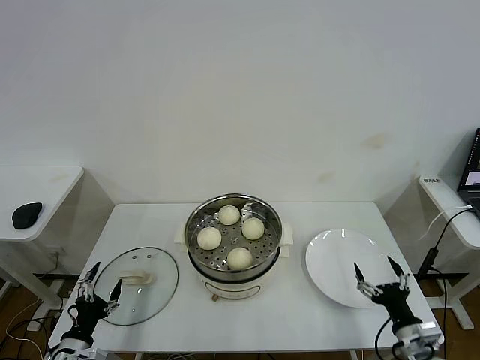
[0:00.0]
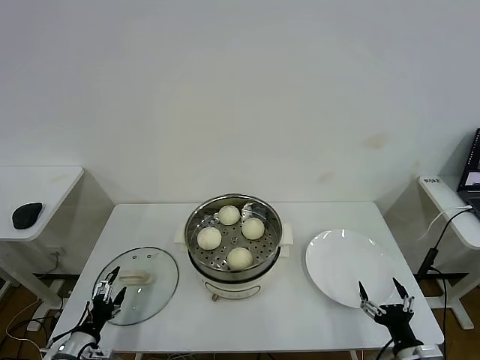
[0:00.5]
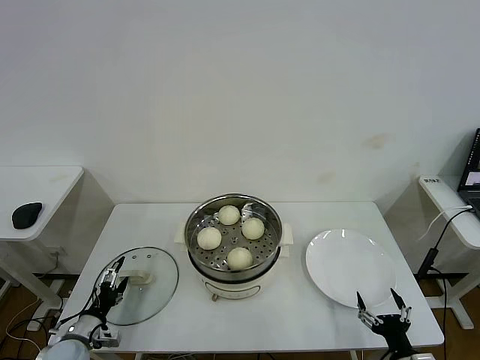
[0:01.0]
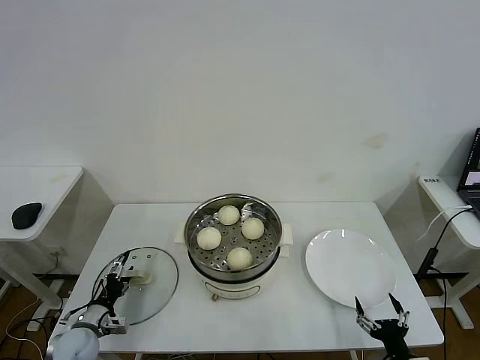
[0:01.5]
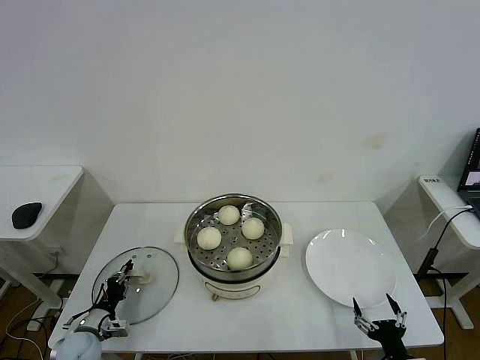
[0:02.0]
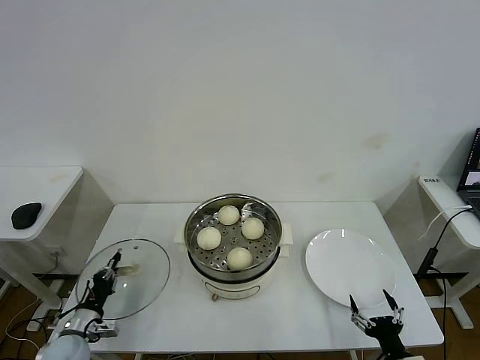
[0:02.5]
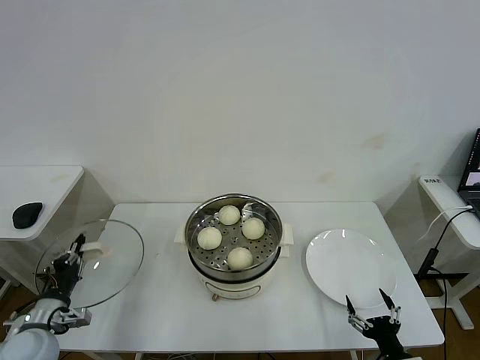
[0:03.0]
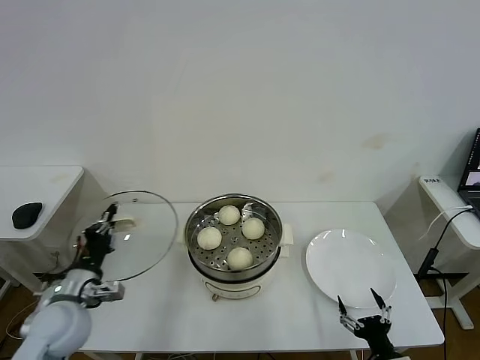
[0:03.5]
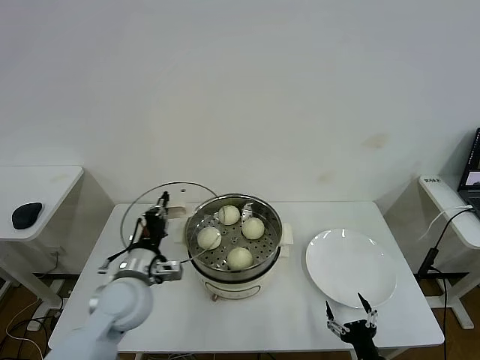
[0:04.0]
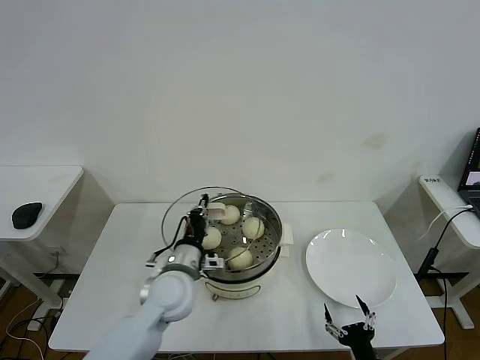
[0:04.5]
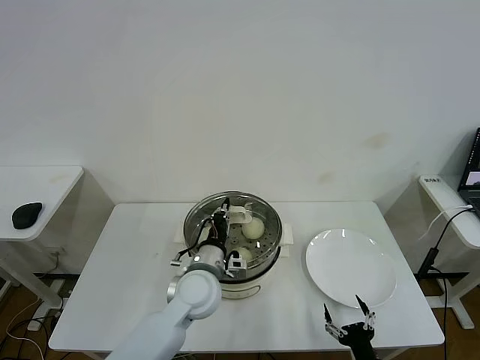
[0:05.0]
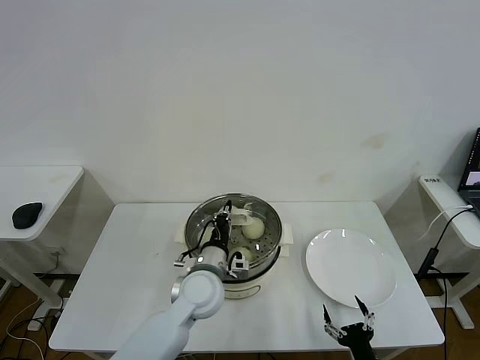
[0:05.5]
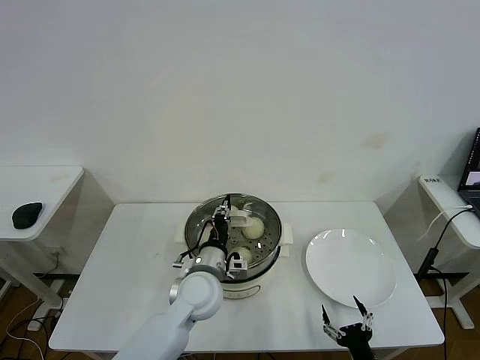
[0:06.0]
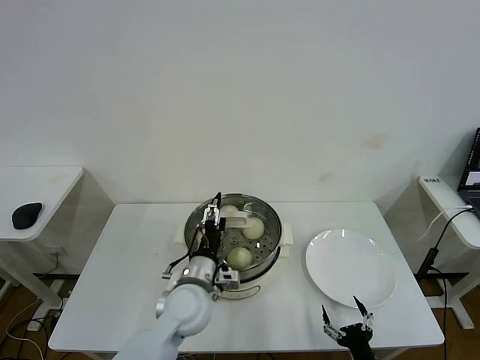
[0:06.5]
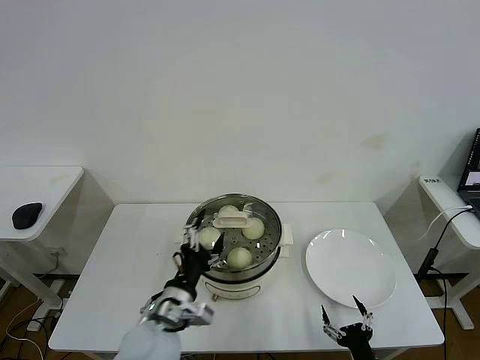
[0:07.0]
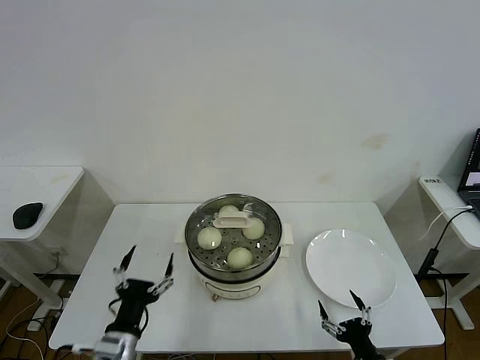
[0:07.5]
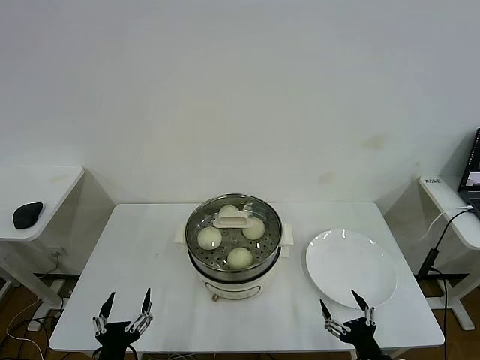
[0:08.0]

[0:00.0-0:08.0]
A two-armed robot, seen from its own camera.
Step, 0:00.0 to 0:02.0: Grasp the pot lid with left gripper.
Step, 0:02.5 to 0:06.0: Place the pot lid on the steamer with left gripper.
0:00.0 to 0:02.0: The left gripper travels forward and downward by approximately 10 cm, and closes; the right gripper travels backward by roughly 5 cm.
0:02.0 to 0:04.0: The left gripper is displaced upward and to the right by approximately 25 cm. Meanwhile the right gripper ends up roughly 5 cm from where it was.
0:04.0 to 0:06.0: The left gripper is displaced to the right by some 15 cm.
0:06.0 to 0:08.0: The left gripper goes approximately 30 cm backward and to the left, and opens up.

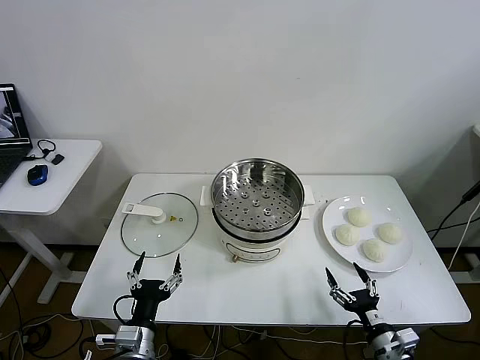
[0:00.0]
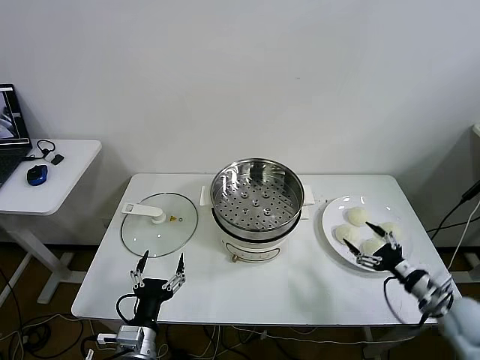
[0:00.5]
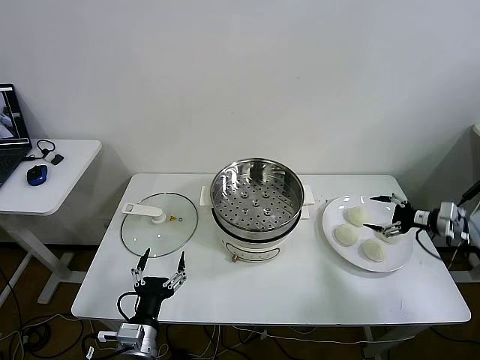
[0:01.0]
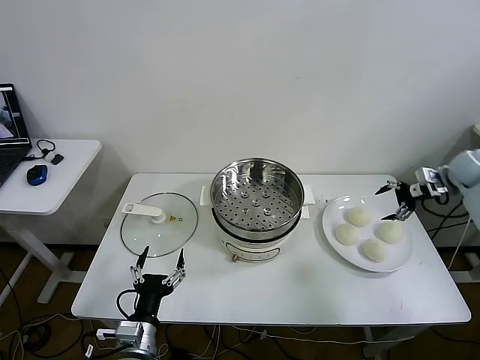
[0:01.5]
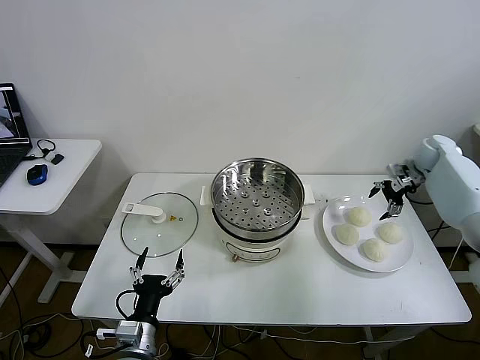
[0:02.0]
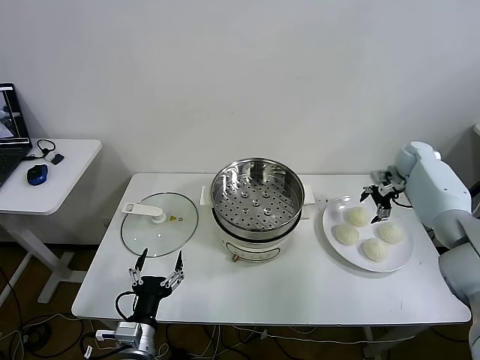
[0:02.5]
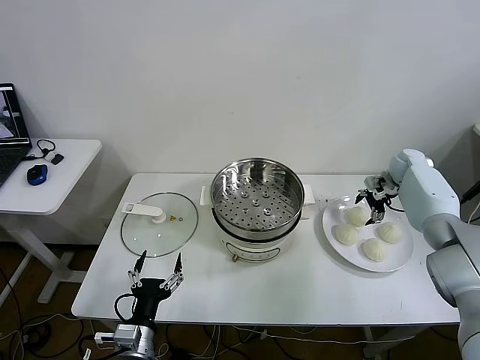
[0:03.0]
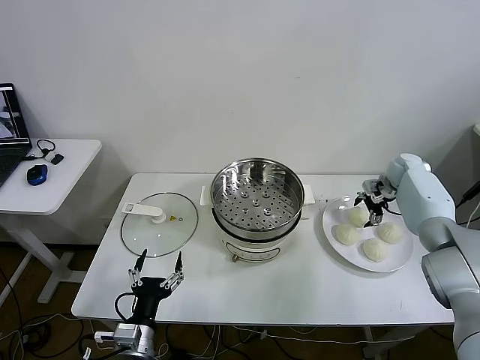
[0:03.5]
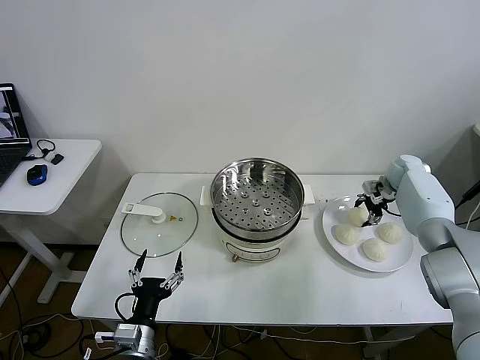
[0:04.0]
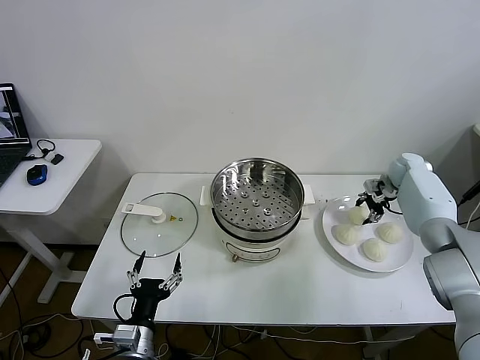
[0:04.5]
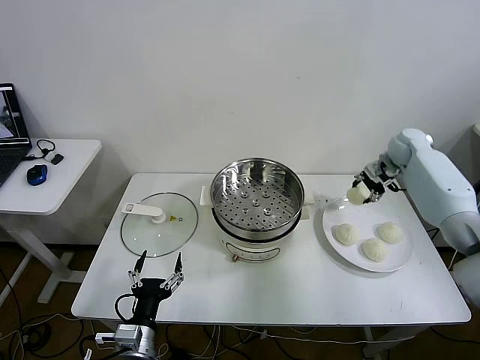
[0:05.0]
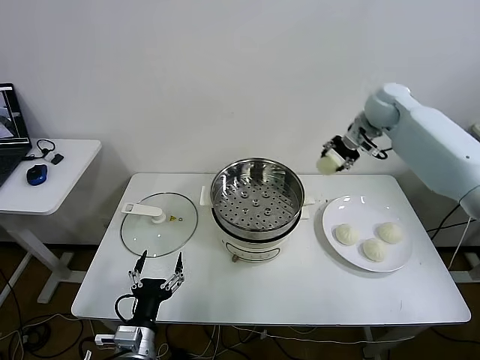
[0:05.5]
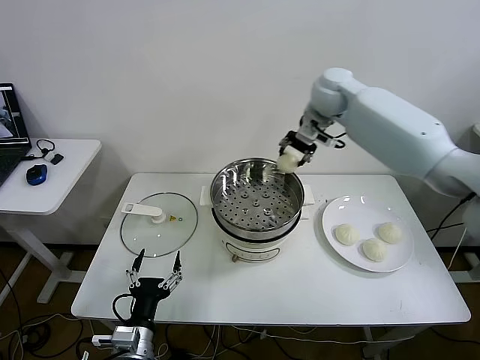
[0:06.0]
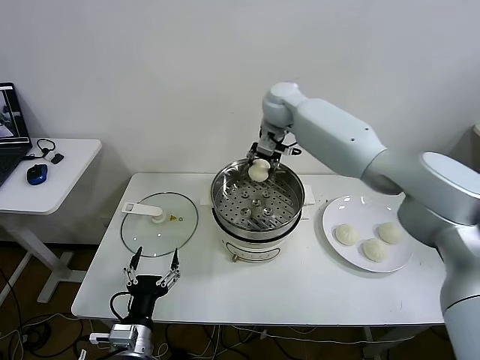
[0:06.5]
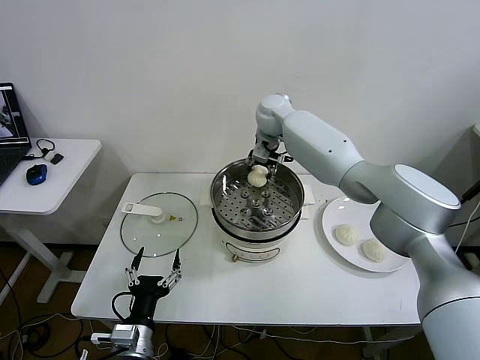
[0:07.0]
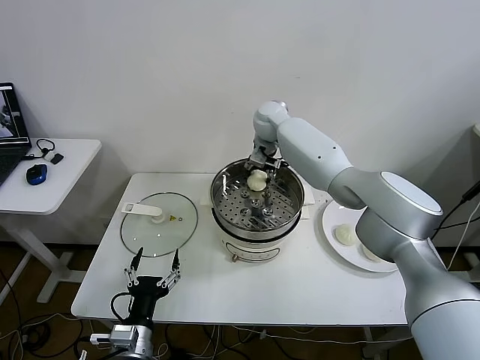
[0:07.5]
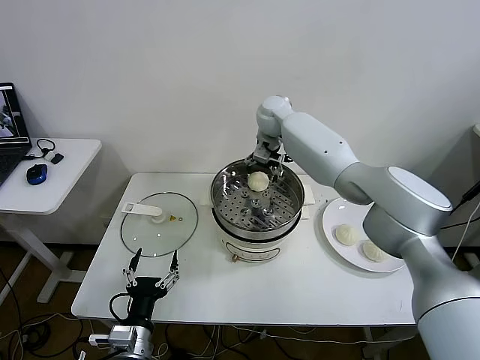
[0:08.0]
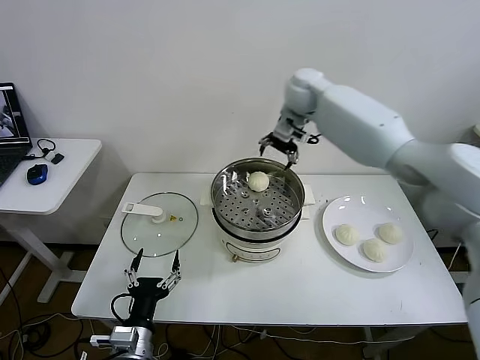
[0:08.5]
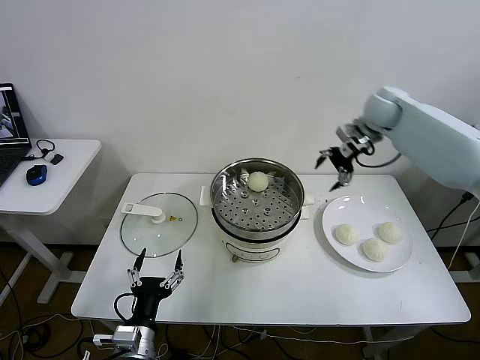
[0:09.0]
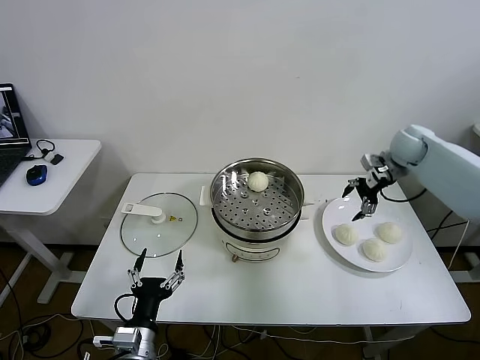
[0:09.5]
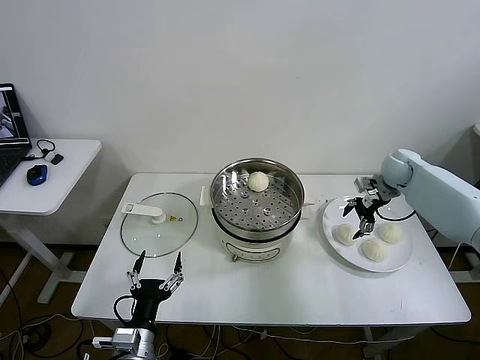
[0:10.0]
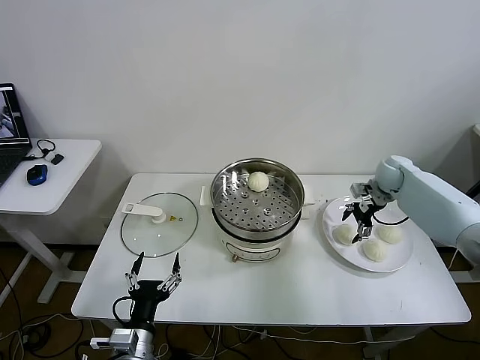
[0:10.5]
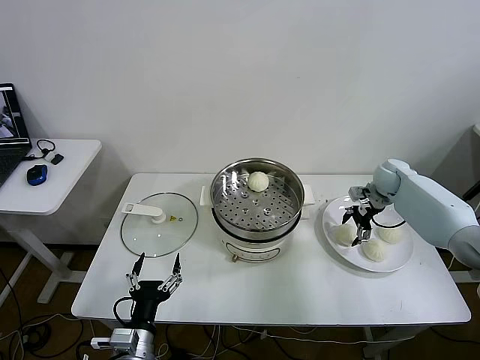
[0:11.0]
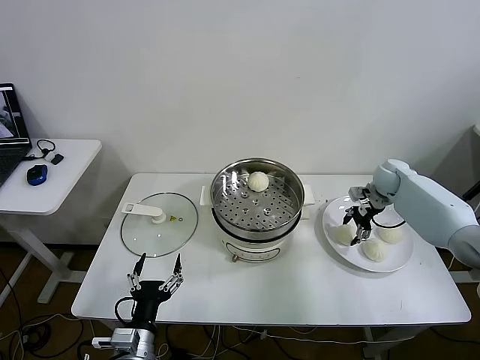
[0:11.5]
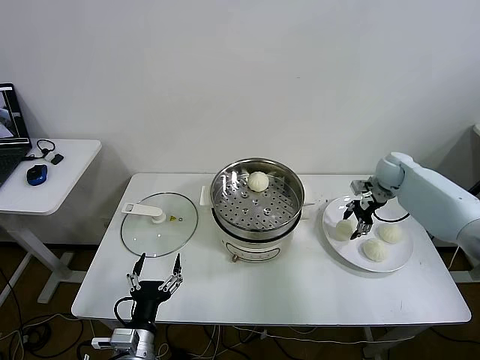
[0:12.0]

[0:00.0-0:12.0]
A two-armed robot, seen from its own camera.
Step, 0:00.0 to 0:04.5: Grasp the baozi in the plate with right gripper.
Step, 0:05.0 to 0:07.5: Place the baozi on the steamer with right gripper.
Step, 0:08.5 to 0:11.5: Grasp the baozi in the plate with right gripper.
0:02.0 to 0:04.0: The right gripper travels downward by roughly 5 cm, and closes.
0:04.0 to 0:06.0: The right gripper shifts some 40 cm to the left and upward, and closes.
0:06.0 to 0:08.0: The right gripper heads to the left and downward, covering approximately 10 cm, and opens up.
0:08.0 to 0:10.0: The right gripper moves to the right, about 35 cm.
0:10.0 to 0:12.0: The right gripper closes its fingers.

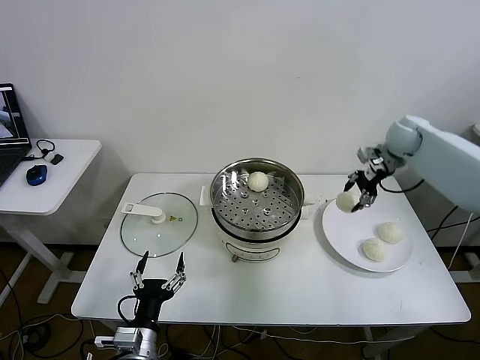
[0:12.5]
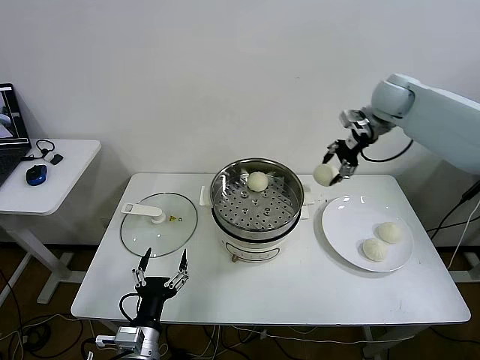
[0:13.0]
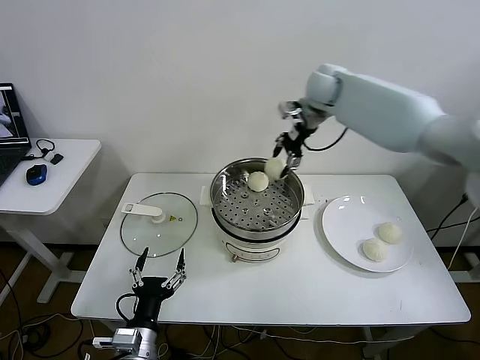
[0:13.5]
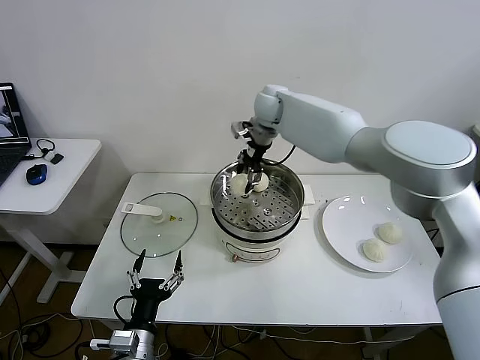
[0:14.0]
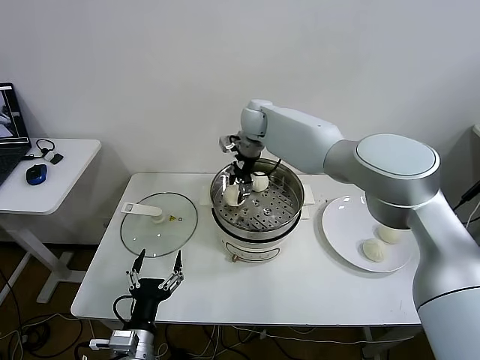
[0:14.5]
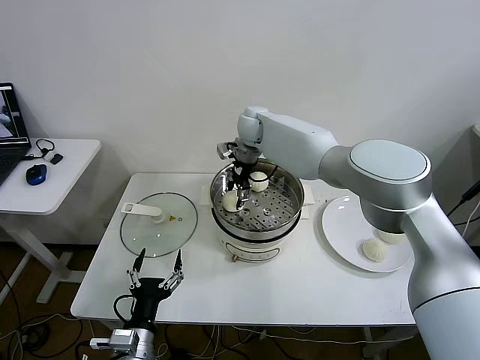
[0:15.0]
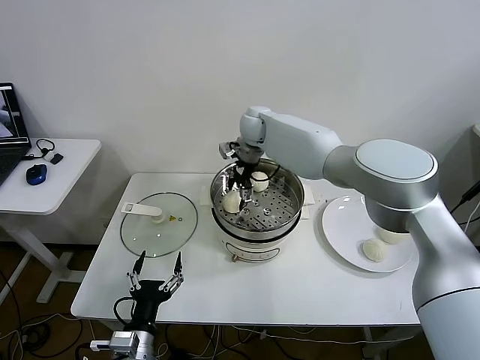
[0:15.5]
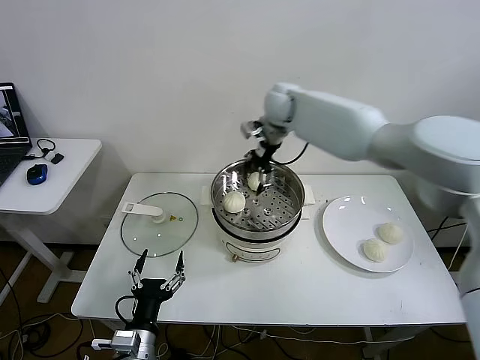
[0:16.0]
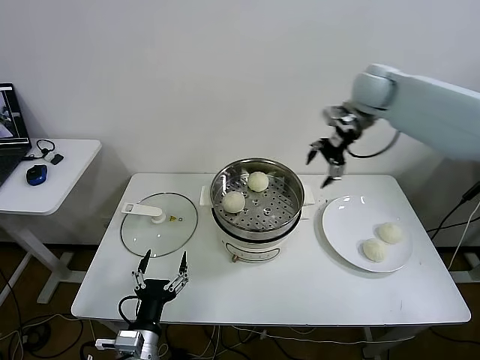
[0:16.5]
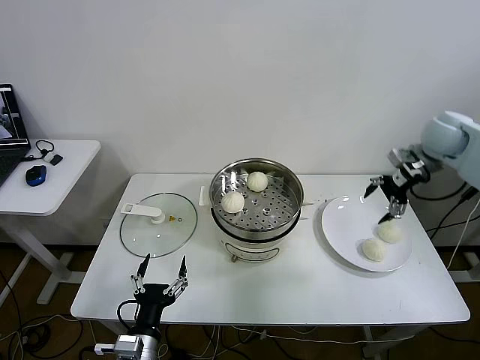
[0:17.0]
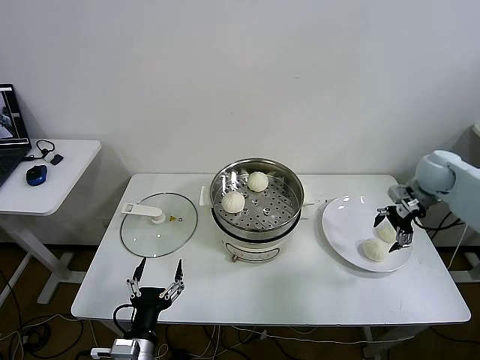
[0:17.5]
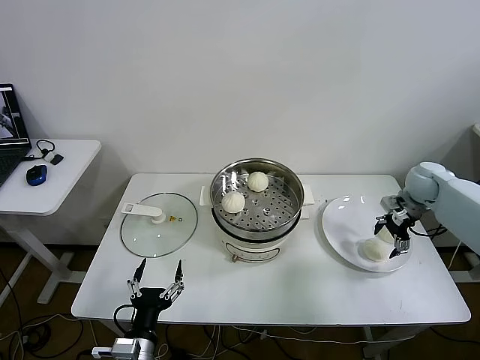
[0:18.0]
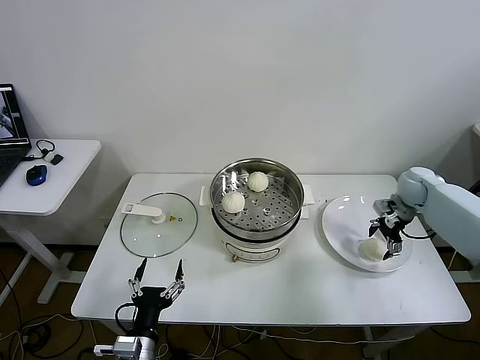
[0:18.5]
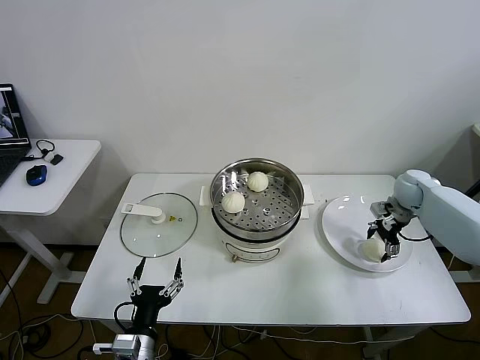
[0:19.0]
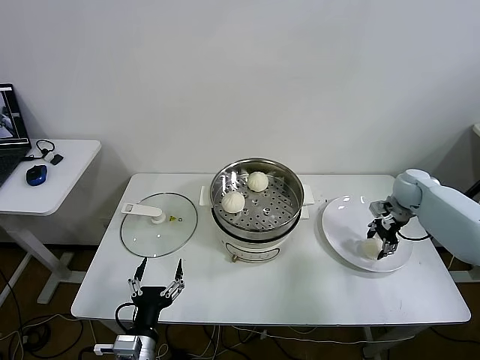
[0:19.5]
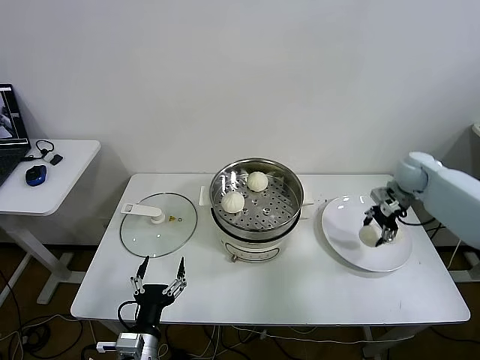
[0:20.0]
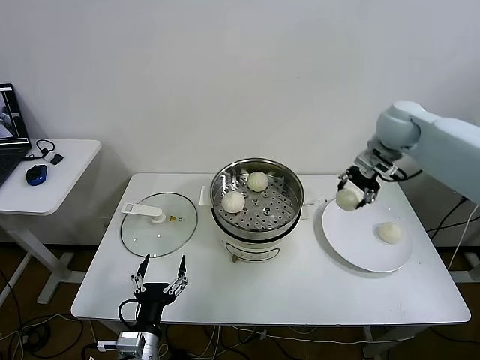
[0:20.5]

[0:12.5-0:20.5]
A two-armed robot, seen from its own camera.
Step, 0:12.5 to 0:15.5: Place the baozi on the steamer with right gripper.
Step, 0:16.0 to 0:19.5: Grasp the baozi in the plate with right gripper.
0:12.5 to 0:14.5: The right gripper heads to the left, covering some 35 cm.
0:14.5 to 0:16.5: The right gripper is displaced to the right and upward by approximately 30 cm, and opens its fingers.
0:16.5 to 0:18.5: The right gripper shifts roughly 30 cm downward and to the right.
0:18.5 to 0:20.5: The right gripper is displaced upward and to the left by some 25 cm, and closes its fingers.
